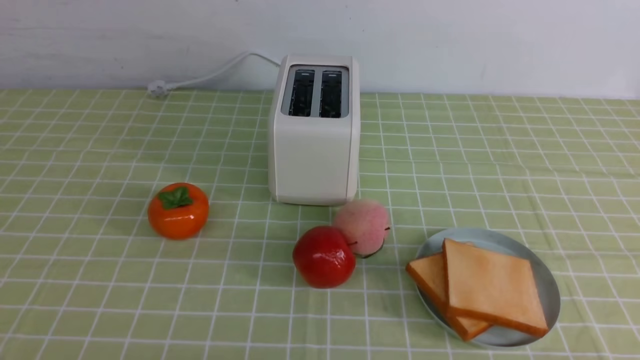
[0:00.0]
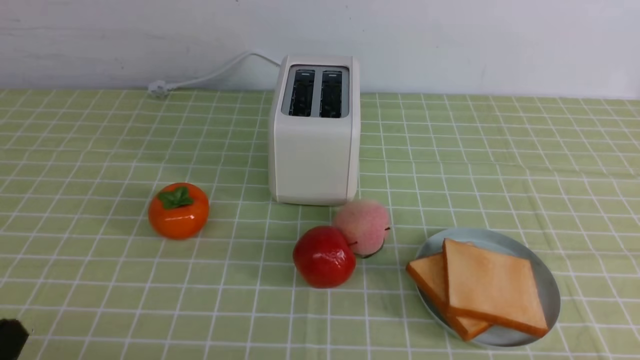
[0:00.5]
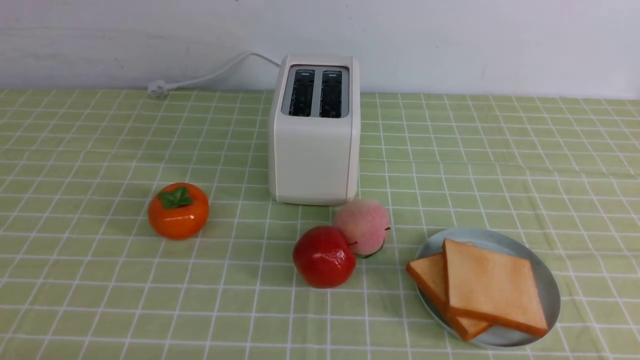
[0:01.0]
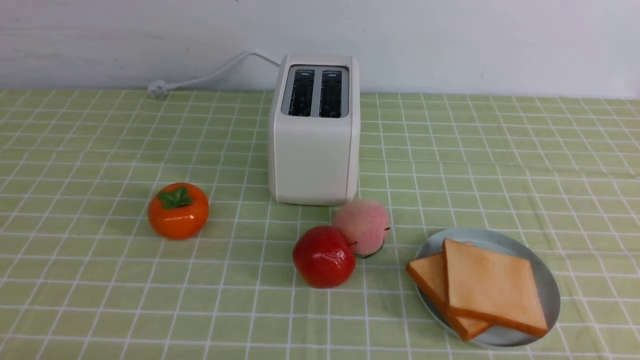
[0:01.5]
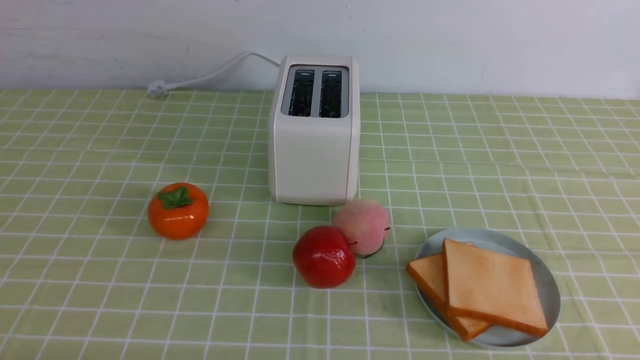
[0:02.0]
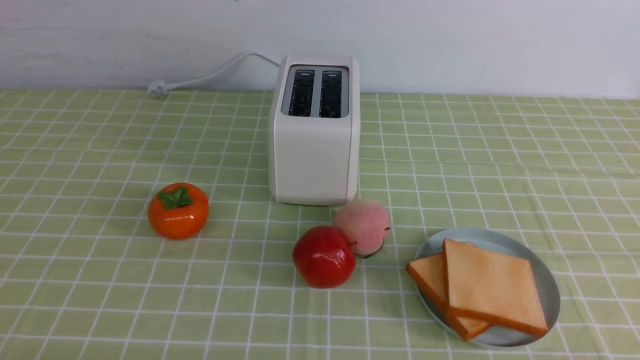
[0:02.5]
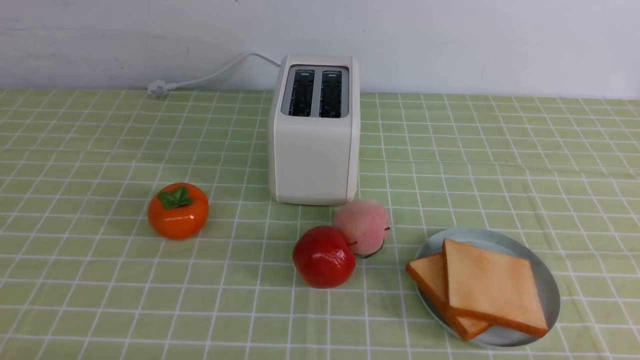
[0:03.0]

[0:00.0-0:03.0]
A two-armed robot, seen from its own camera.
Task of the whole recording: take toasted bread from bread machine on green coffee tablecloth place on plate.
0:01.5 to 0:03.0: Both grippers stay put.

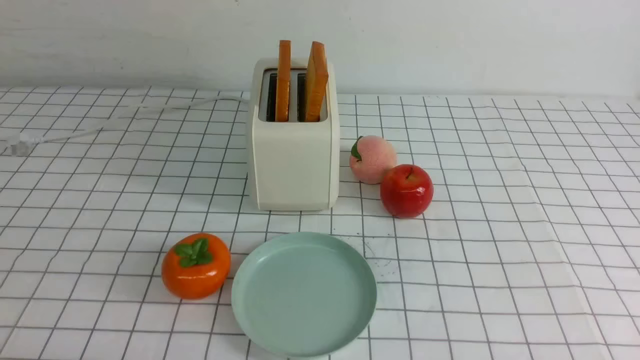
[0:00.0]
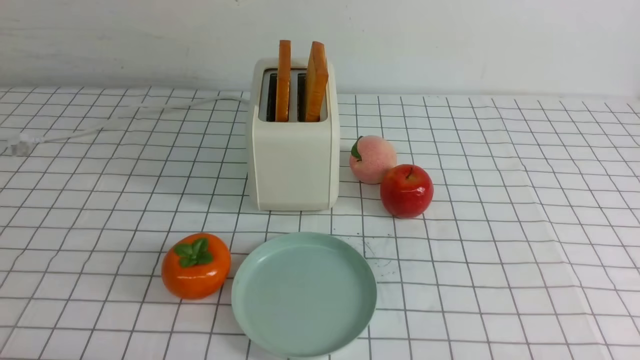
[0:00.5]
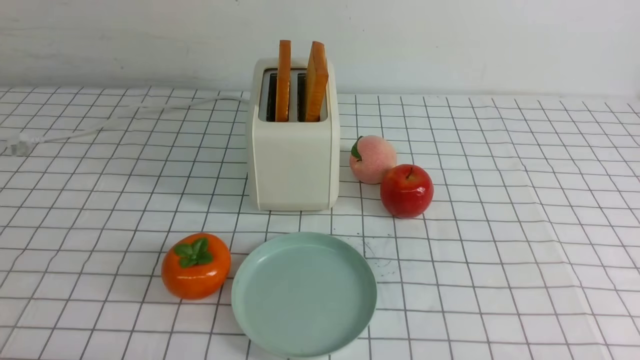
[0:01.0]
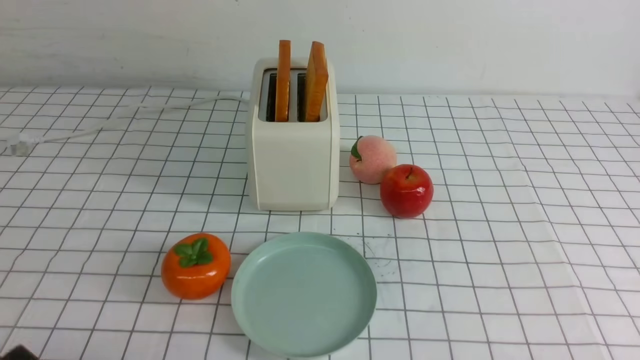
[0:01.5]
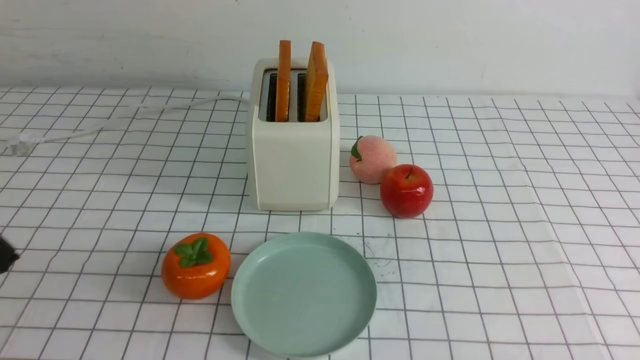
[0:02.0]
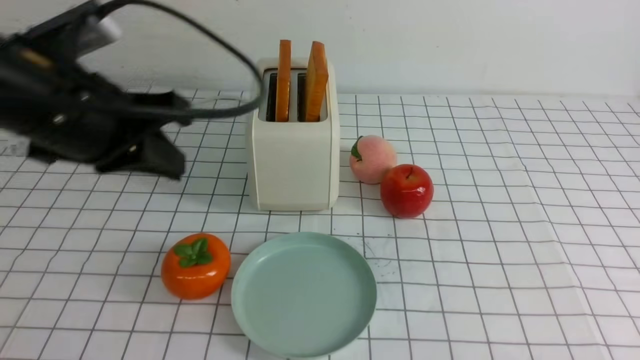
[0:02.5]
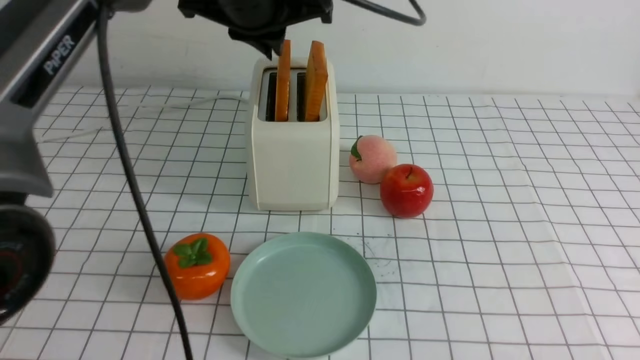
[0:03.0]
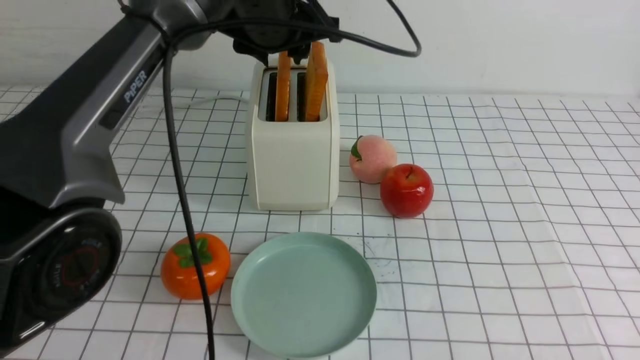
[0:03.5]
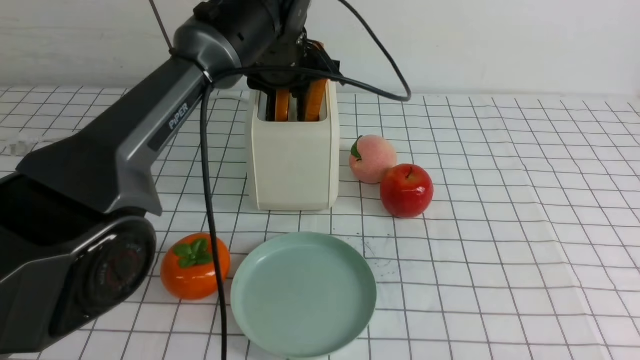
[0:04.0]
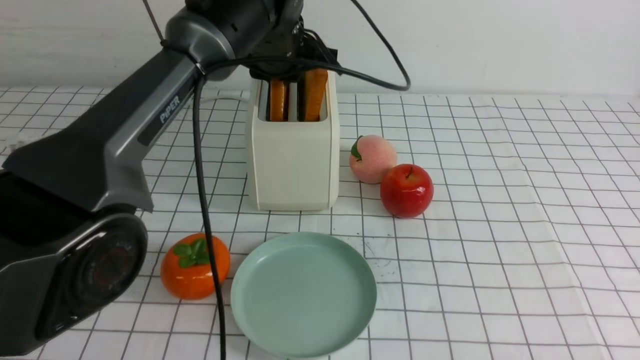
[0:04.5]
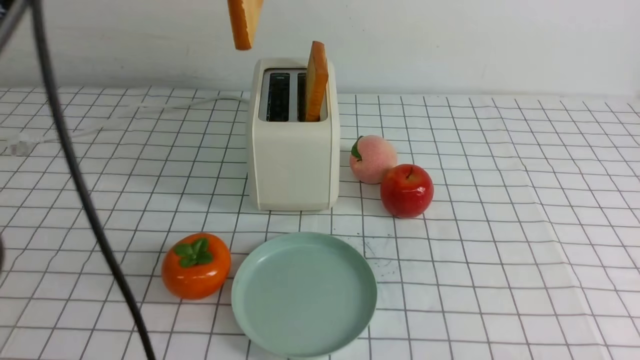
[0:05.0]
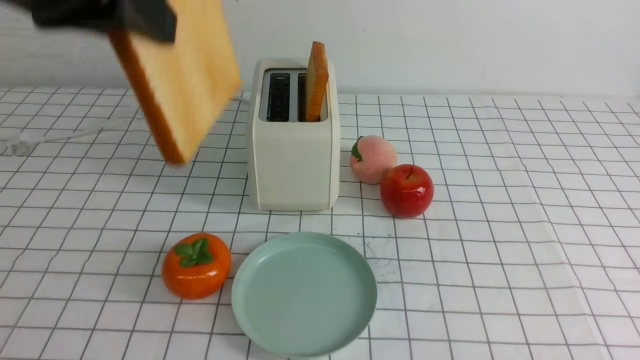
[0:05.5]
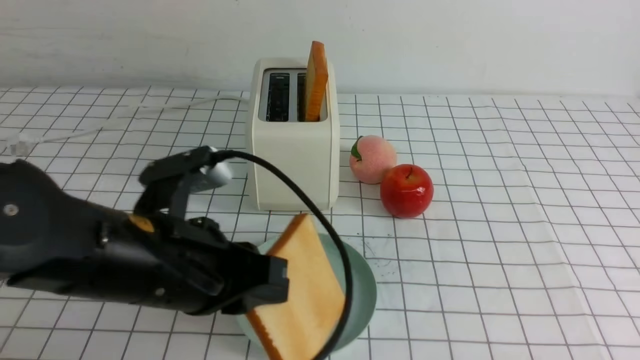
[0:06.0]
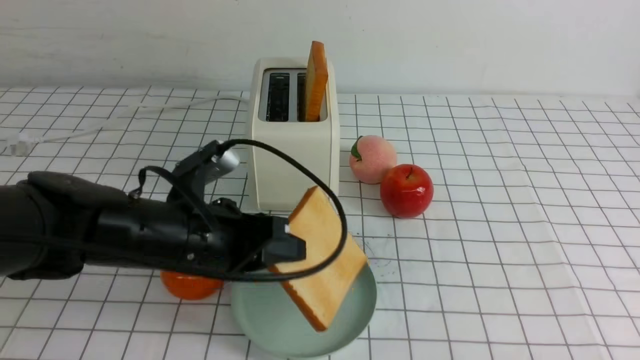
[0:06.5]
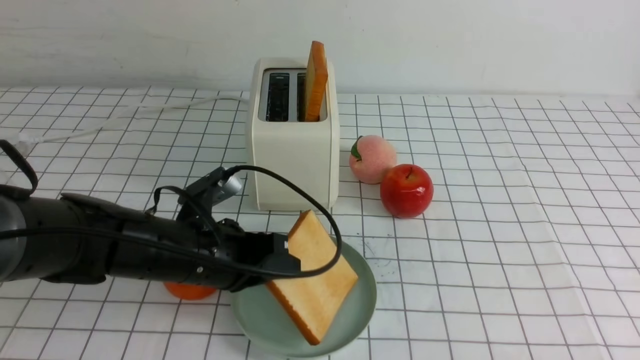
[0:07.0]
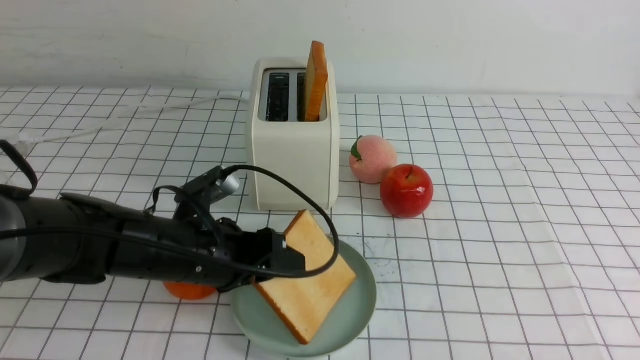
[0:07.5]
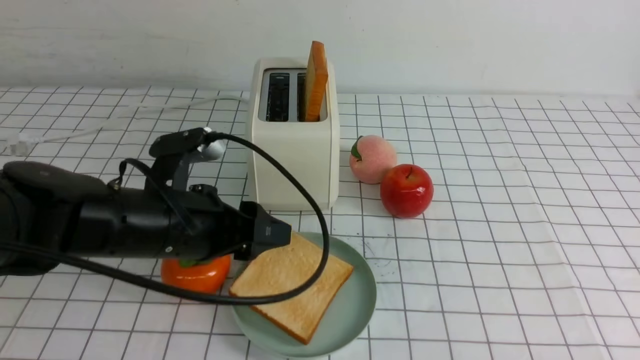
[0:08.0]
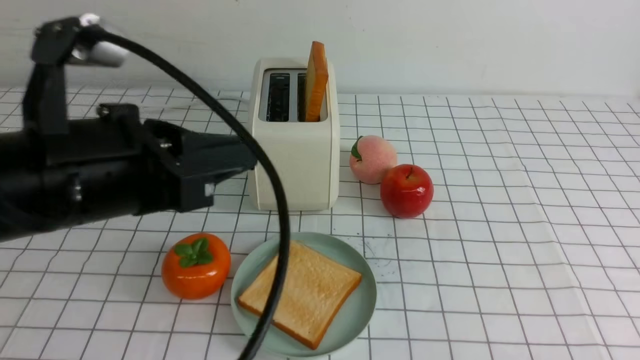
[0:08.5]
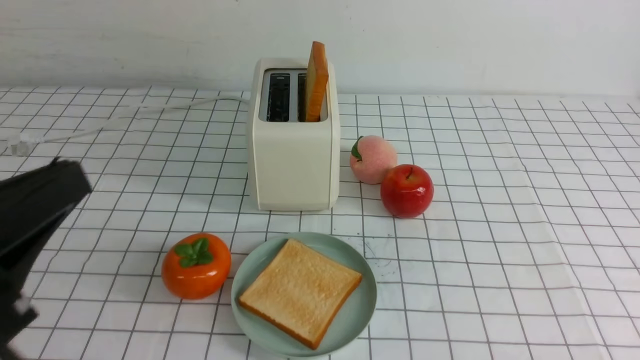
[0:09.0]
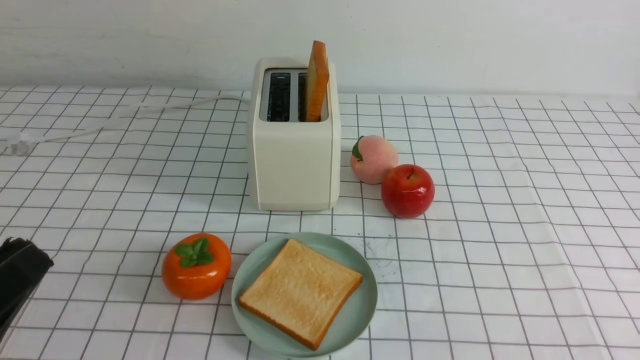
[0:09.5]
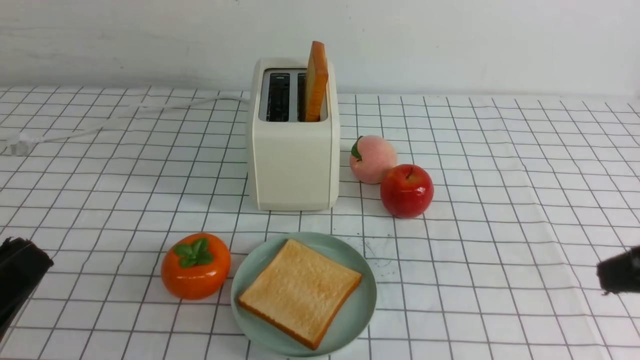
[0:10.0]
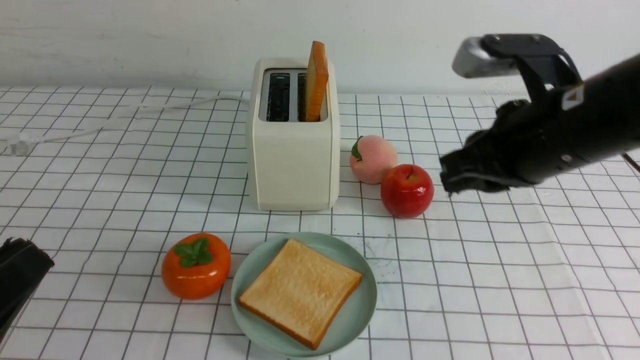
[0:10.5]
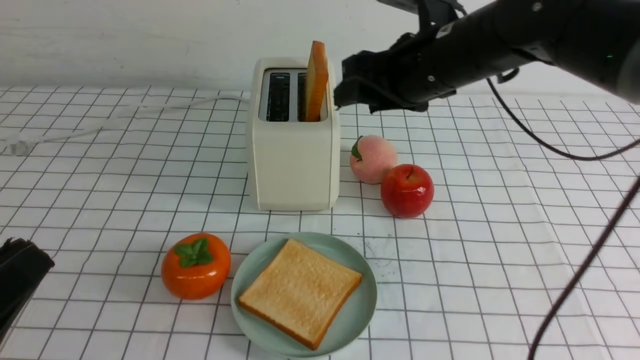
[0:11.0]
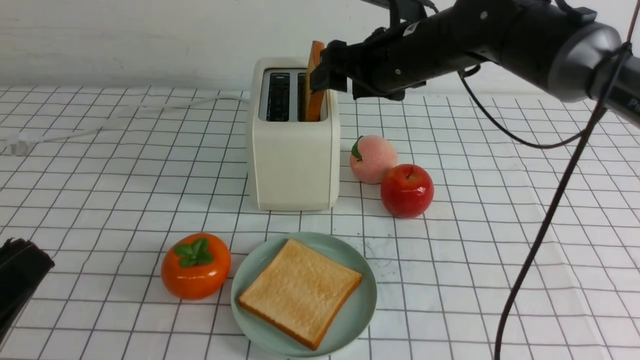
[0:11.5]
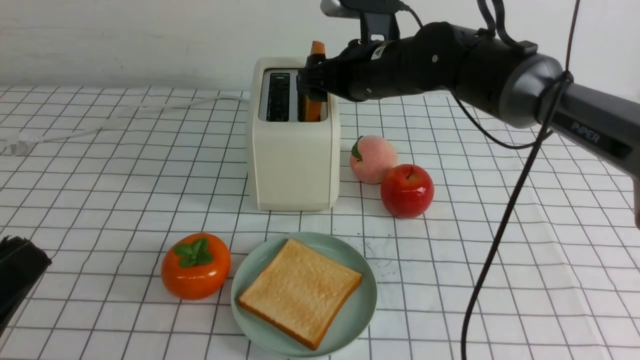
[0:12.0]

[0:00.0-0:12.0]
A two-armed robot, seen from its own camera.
Task of the whole recording: take toasted bread from bread machine on white checkered table place on plate.
Step, 0:00.0 to 0:04.5: use the left arm to take out a slice of bread.
Step, 0:05.0 to 0:08.0: use the left arm to put a slice of bread into the empty plate.
0:02.0 to 0:04.0: The left gripper moves forward and to the right, approximately 40 cm, and opens.
0:04.0 to 0:06.0: The left gripper travels backward by about 25 cm, and closes up.
0:06.0 to 0:08.0: The left gripper travels forward and downward by roughly 10 cm, and opens.
0:08.0 to 0:10.0: The left gripper is displaced backward and to the left by about 25 cm, and closes its fingers; the right gripper heads upward and forward, covering roughly 20 cm.
0:10.0 to 0:12.0: The right gripper moves forward and to the left, about 35 cm, and opens its fingers.

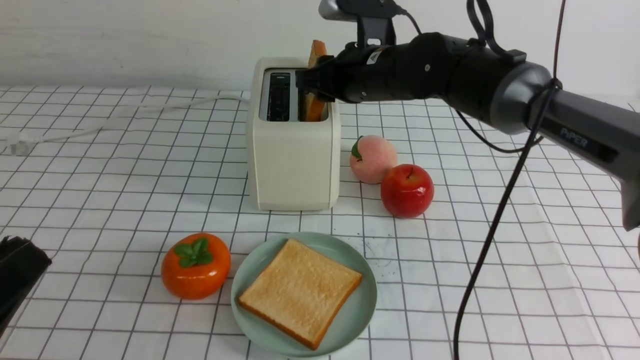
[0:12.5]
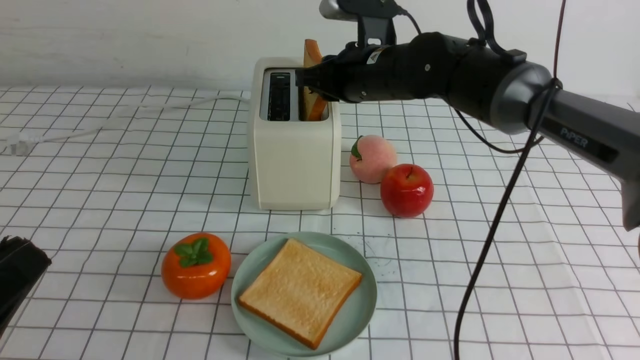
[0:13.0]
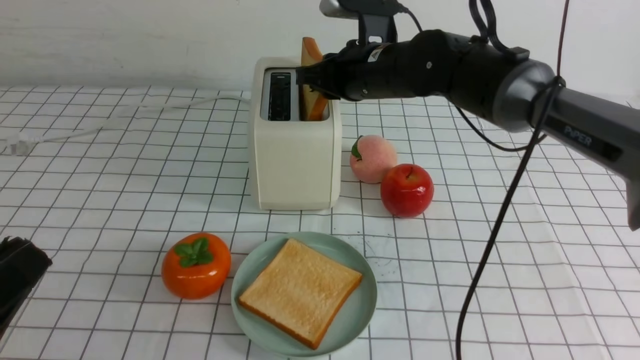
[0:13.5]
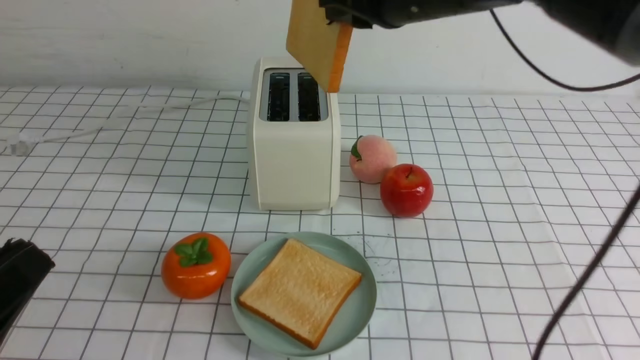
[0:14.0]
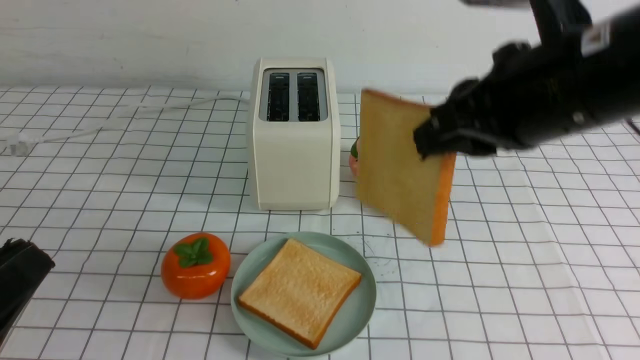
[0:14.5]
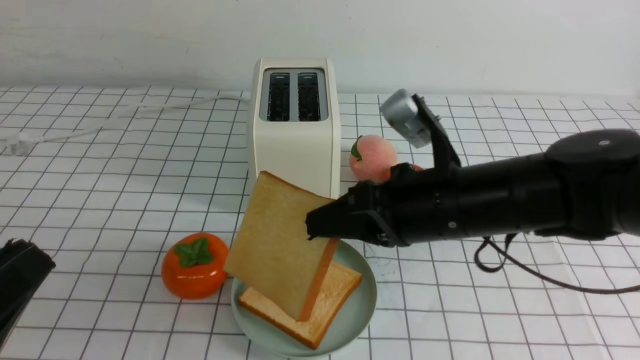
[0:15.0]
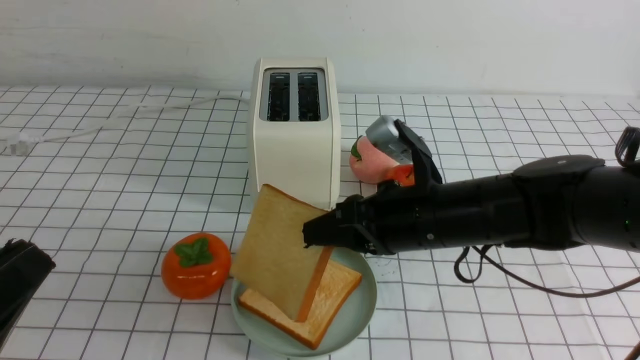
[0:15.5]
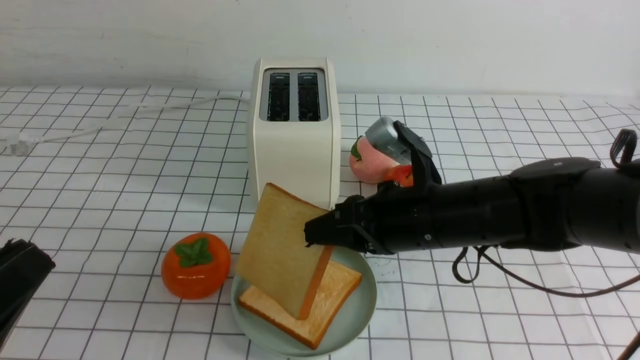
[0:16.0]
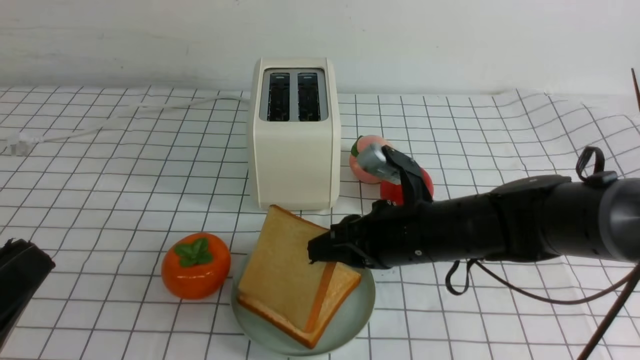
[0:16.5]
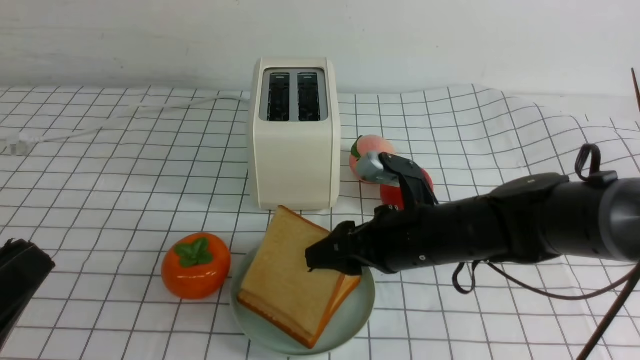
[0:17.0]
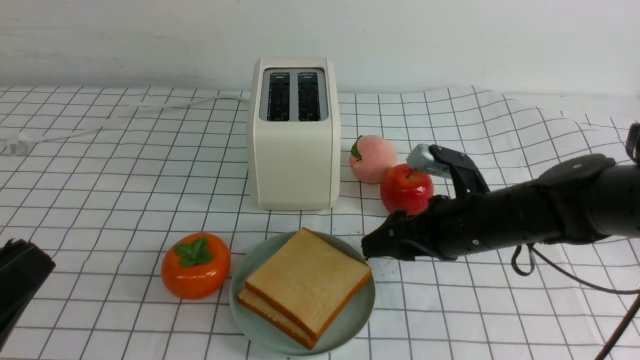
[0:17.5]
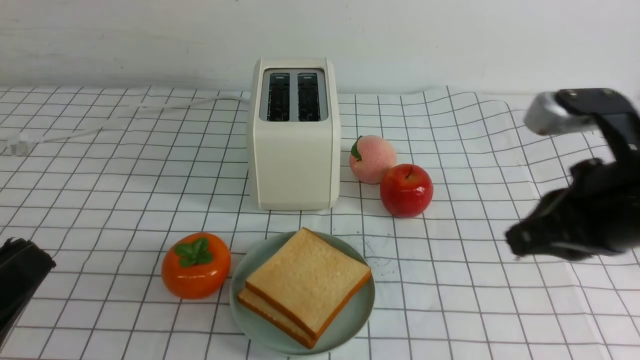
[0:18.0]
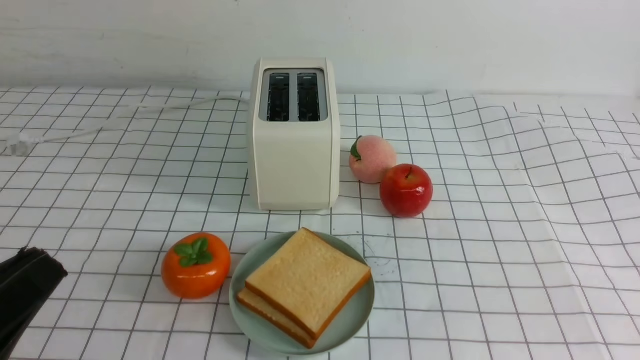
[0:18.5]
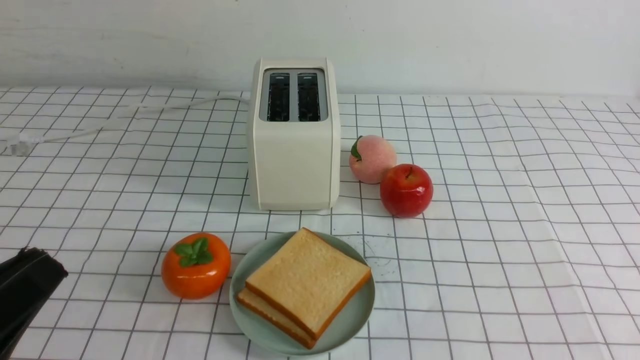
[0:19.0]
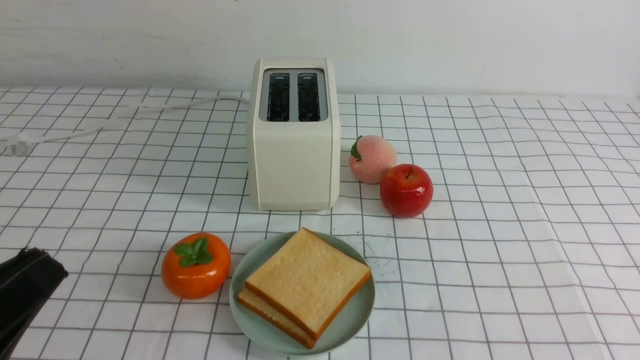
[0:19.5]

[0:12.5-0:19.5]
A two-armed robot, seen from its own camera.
Task of the whole recording: take toasted bread from bread machine on white checkered table place on plate.
Step, 0:14.0 to 0:17.5: use the right arm to put a slice of bread into the plate.
0:12.5 to 0:14.5: The right gripper shifts approximately 20 cm backward and upward.
0:14.5 to 0:16.0: The right gripper travels downward by approximately 20 cm.
0:16.0 to 0:17.5: The right gripper is displaced to the right by roughly 5 cm, and opens up.
0:17.5 to 0:19.5: The right gripper moves backward and to the right, roughly 30 cm, and closes.
